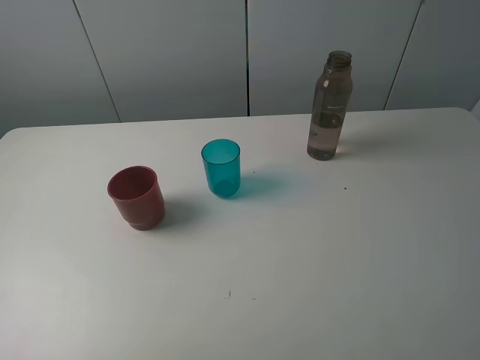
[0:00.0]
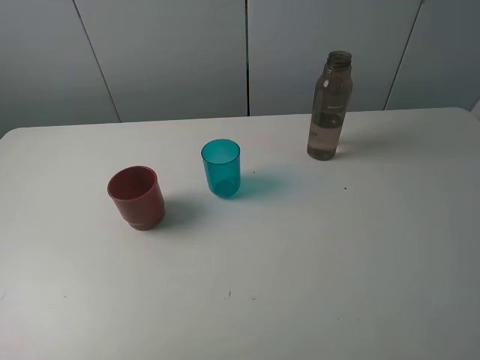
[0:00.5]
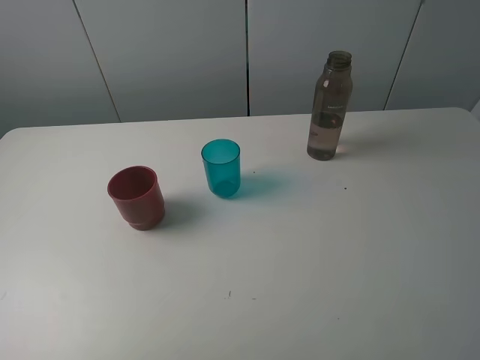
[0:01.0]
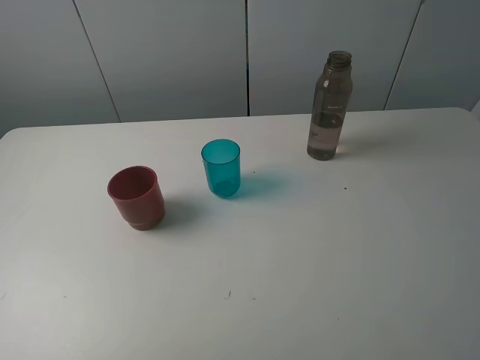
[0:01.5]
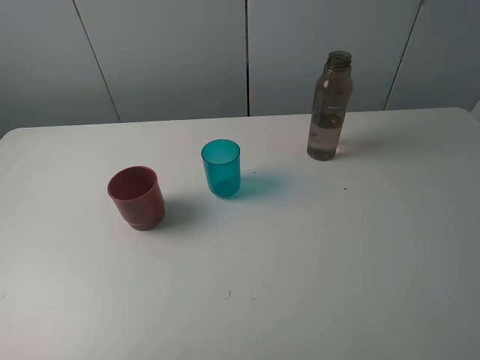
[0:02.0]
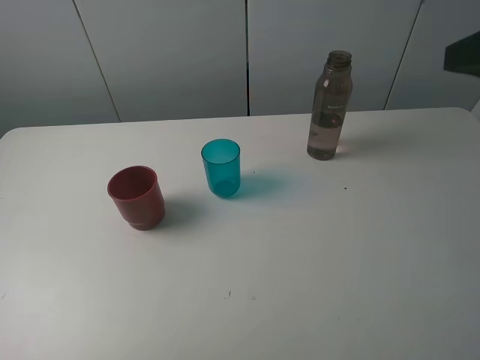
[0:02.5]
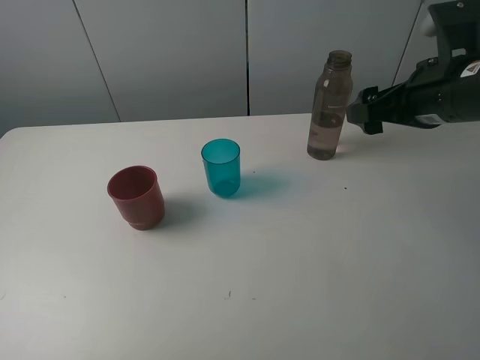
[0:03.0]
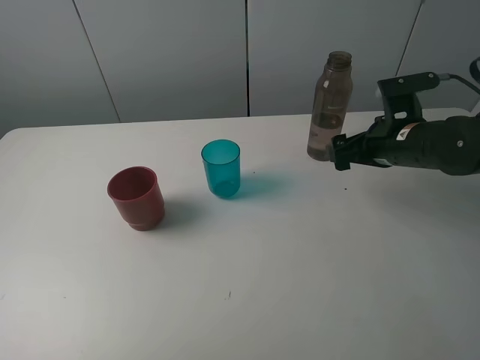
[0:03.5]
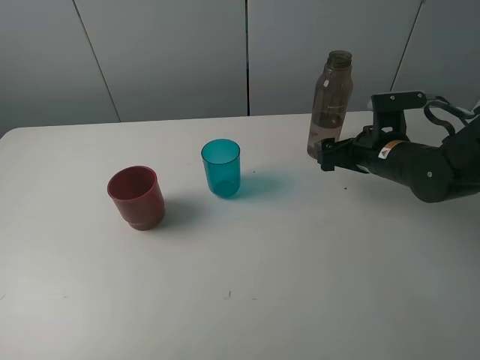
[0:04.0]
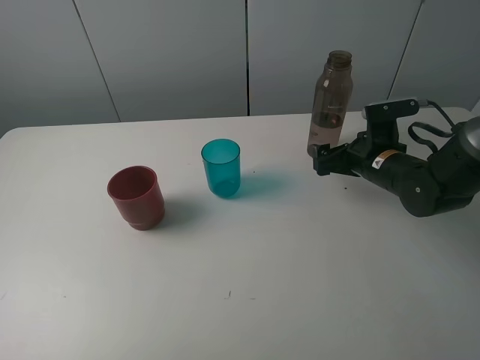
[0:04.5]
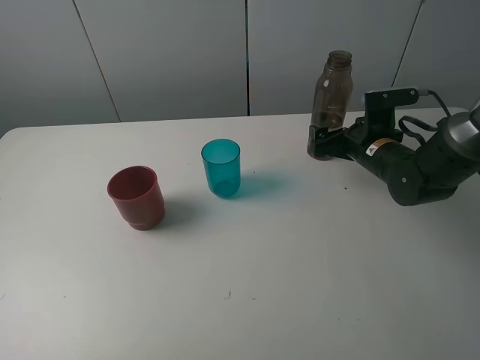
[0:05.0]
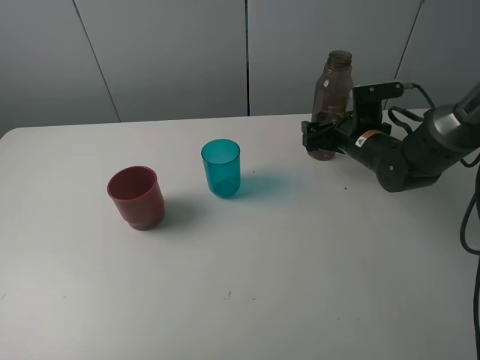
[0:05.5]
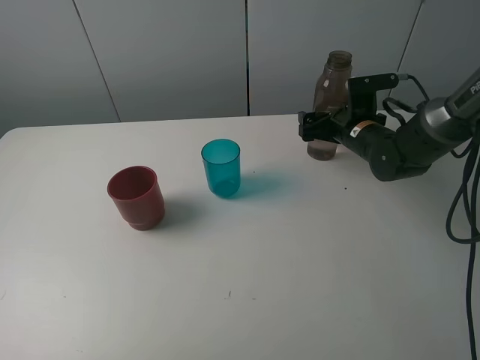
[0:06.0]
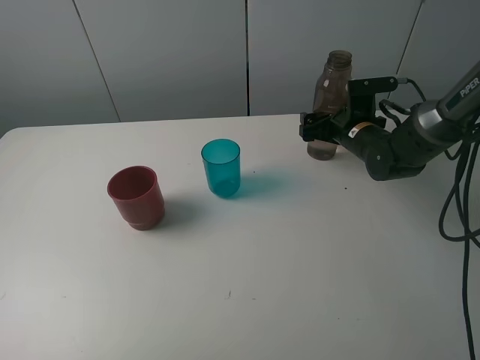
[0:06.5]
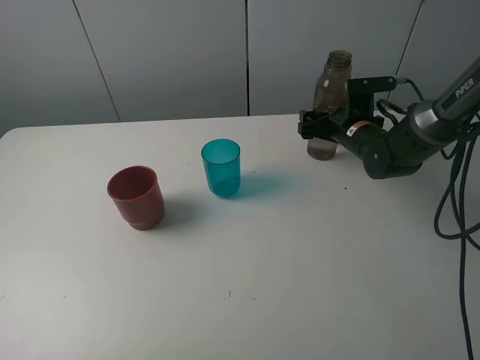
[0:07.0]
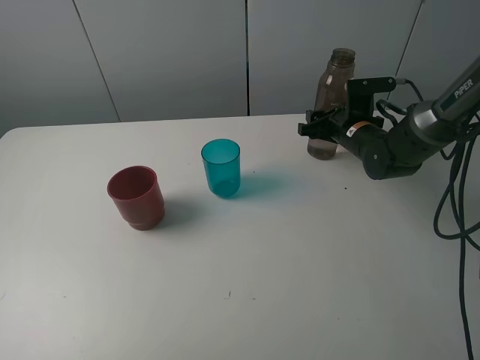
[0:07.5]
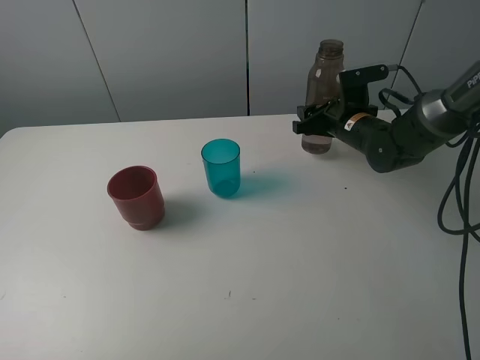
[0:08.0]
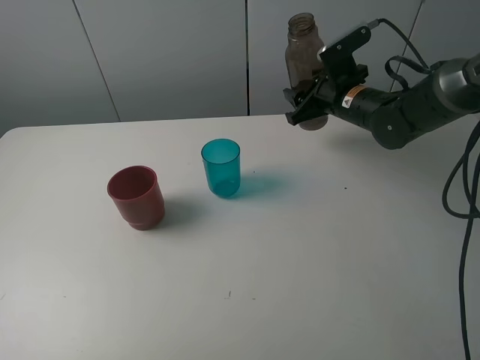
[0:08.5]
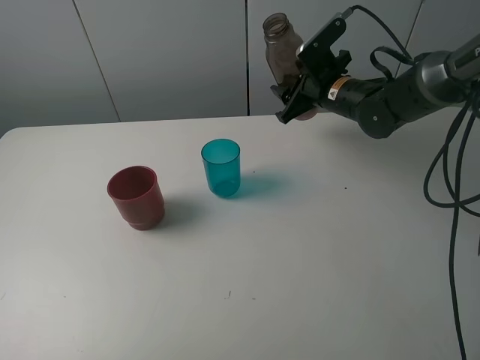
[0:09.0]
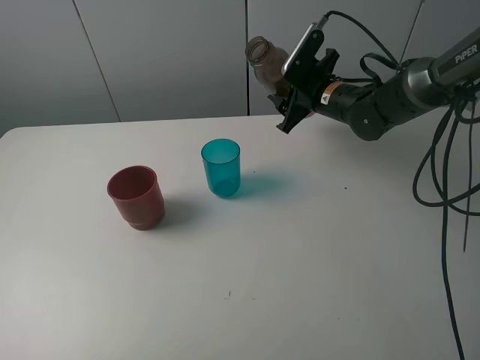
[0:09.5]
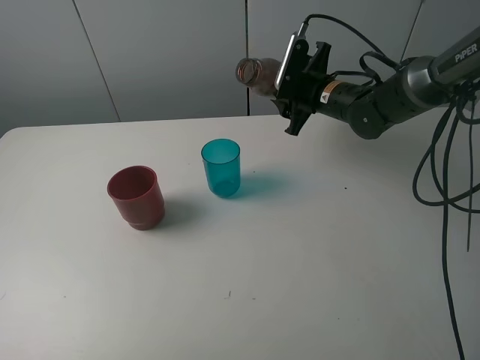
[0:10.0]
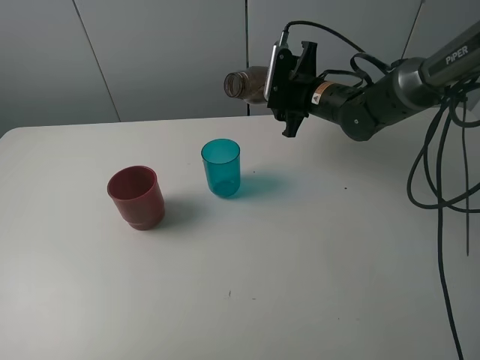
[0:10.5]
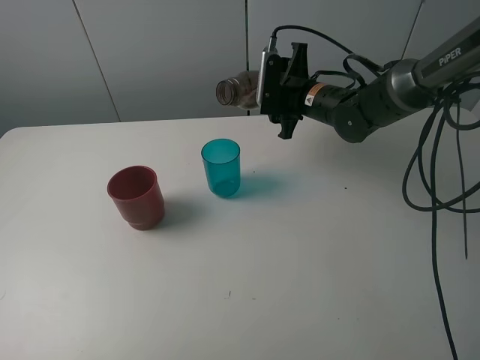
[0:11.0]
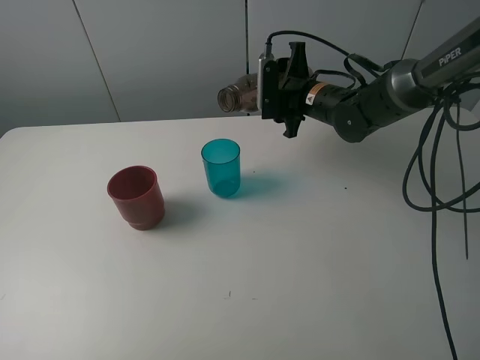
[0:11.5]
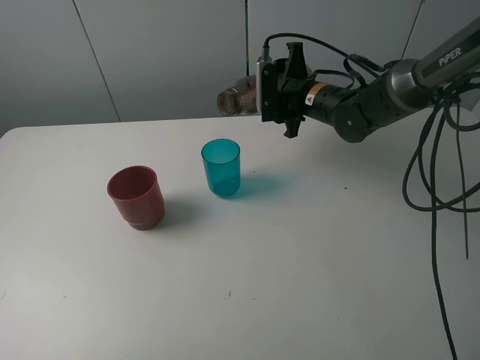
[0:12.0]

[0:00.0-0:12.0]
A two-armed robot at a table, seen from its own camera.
Task of the whole recording: pick up the bottle and pour water into the cup, then pick up the cup containing water and pour it into another cup.
Step, 0.0 to 7.0 s: Grasp the brown bottle with the right gripper.
2.0 to 4.0 s: The right gripper shifts approximately 40 cm forward and downward.
4.0 to 6.0 s: The right gripper shifts approximately 5 cm forward.
6.0 to 8.0 s: The right gripper closes.
8.0 to 10.0 s: The right gripper ends up about 5 cm from where it was.

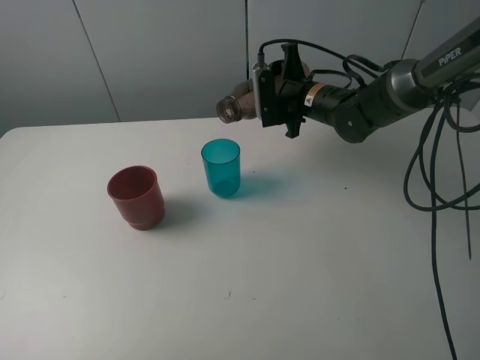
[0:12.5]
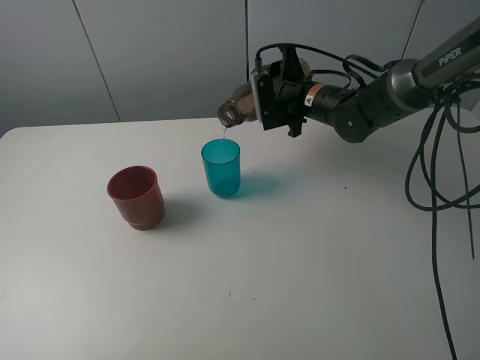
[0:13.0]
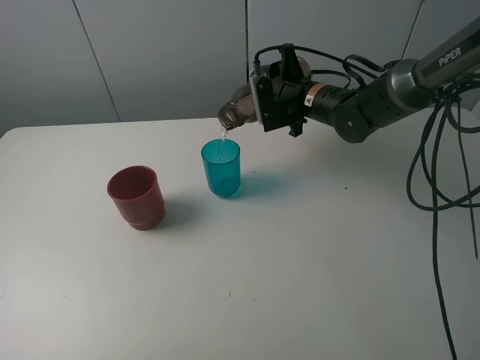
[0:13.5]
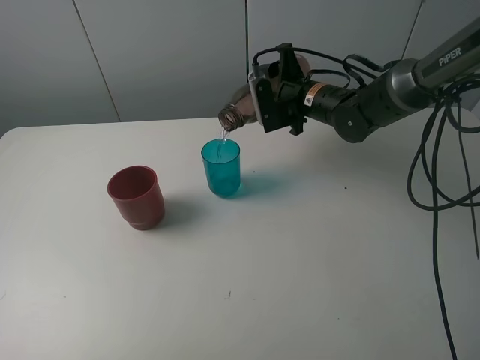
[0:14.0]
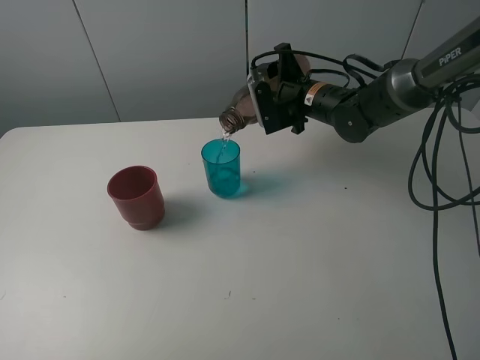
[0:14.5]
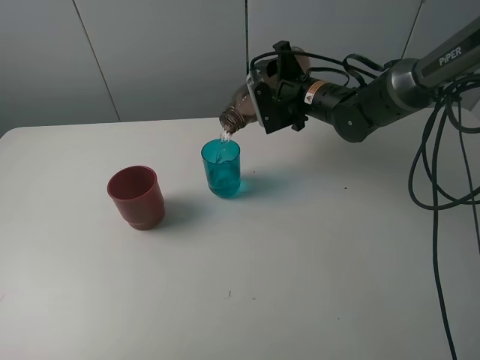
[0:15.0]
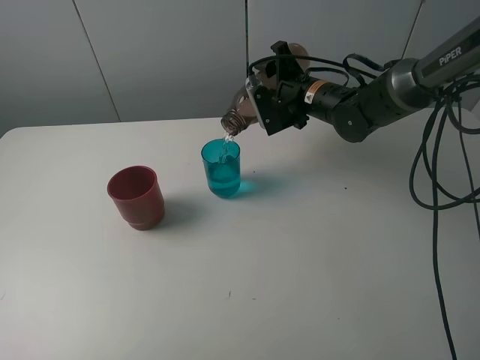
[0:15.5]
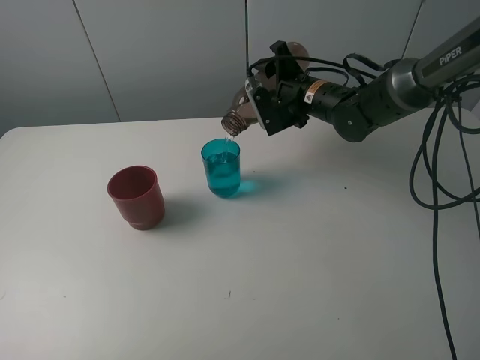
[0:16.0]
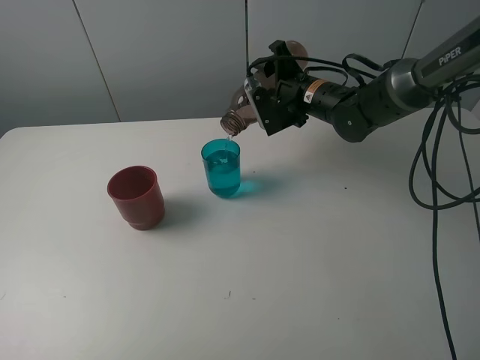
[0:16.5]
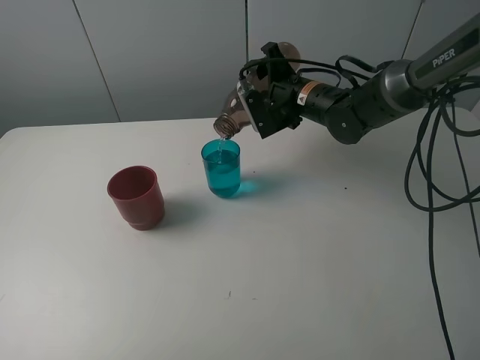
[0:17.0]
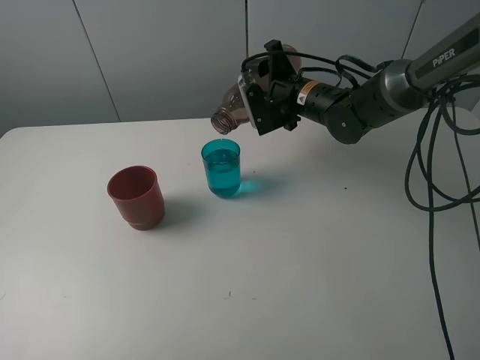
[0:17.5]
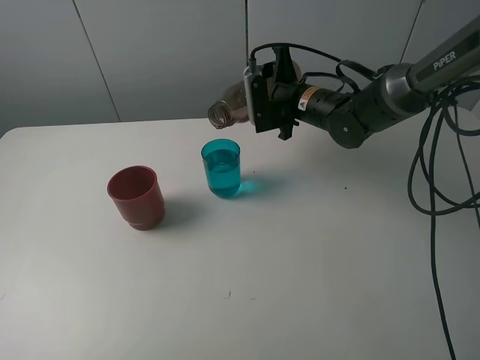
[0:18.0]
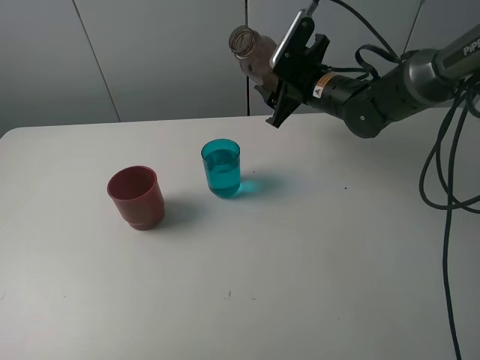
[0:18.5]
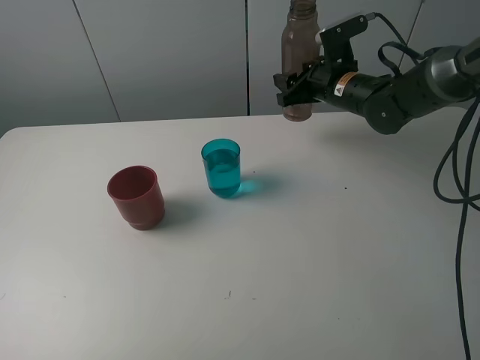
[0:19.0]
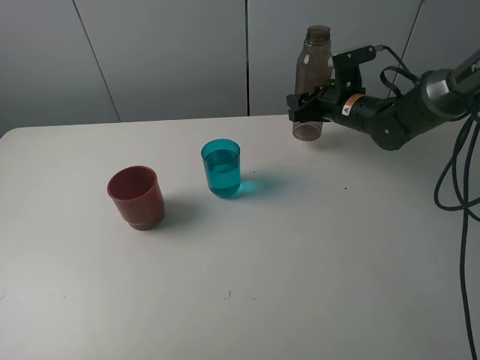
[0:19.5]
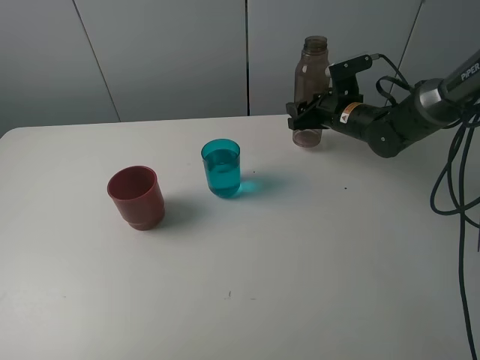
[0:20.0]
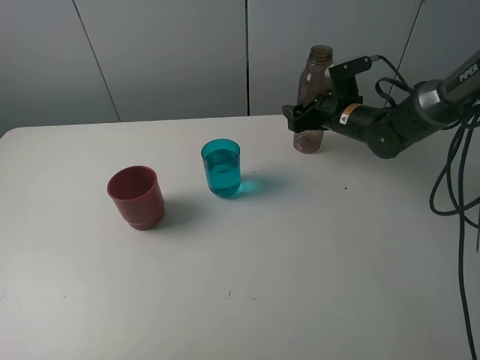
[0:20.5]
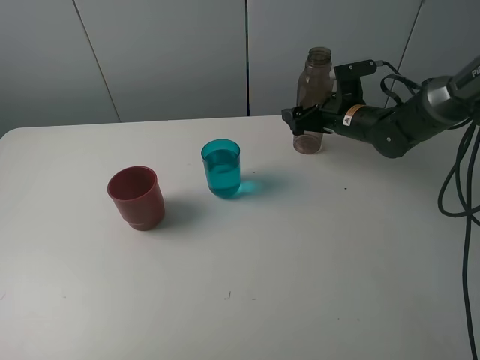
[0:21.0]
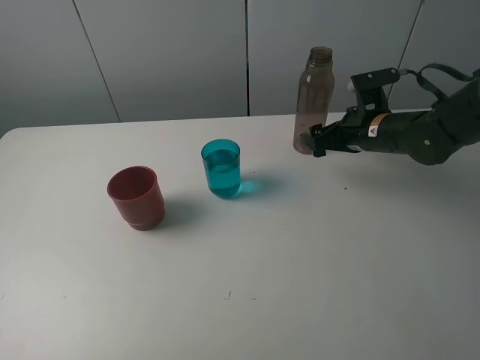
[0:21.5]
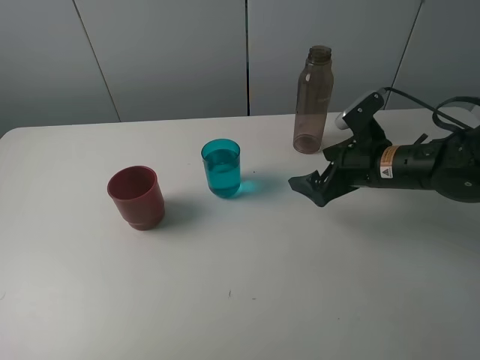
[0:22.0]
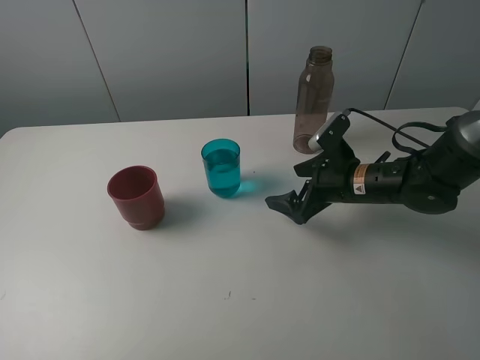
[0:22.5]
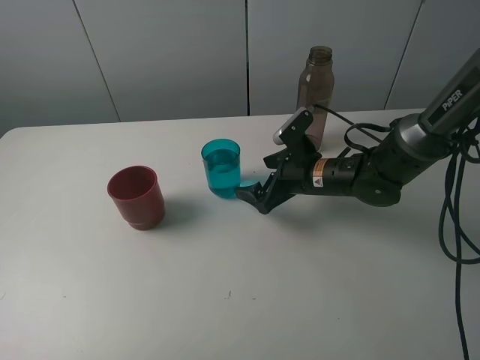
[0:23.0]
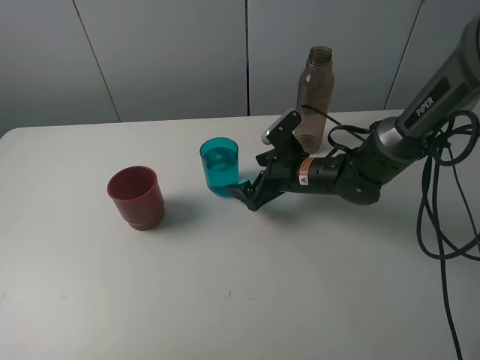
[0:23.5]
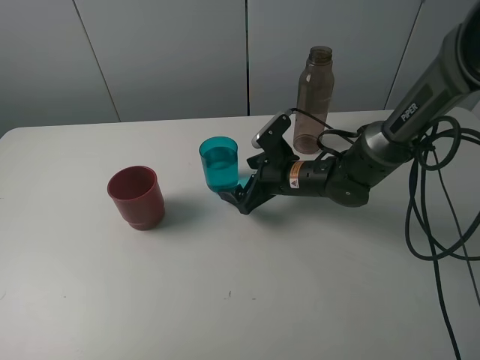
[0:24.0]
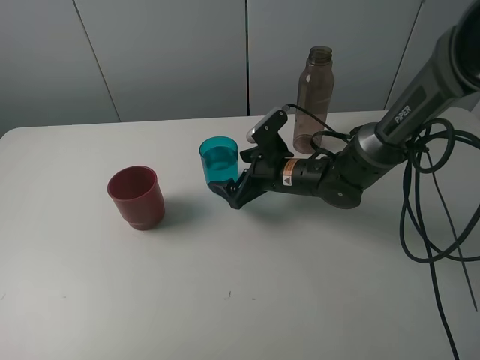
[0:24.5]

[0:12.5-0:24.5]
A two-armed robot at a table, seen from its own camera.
Task of the whole recording: pick up the bottle and pour water into the cup, then pick up the cup containing water and pour it into another cup.
Step, 12.5 to 17.5 s: Pour water from brown bottle to blue cup with the right gripper.
Step, 18.0 to 20.5 s: Place the brown bottle with the right gripper.
12.5 to 16.5 s: The grippers move only a little.
18.5 to 20.5 s: The right gripper travels downward and to the right by roughly 10 cm, and opens its fingers.
20.5 to 22.5 s: The right gripper is displaced backward by roughly 15 cm.
22.5 to 24.5 s: The right gripper heads to the left, covering roughly 10 cm.

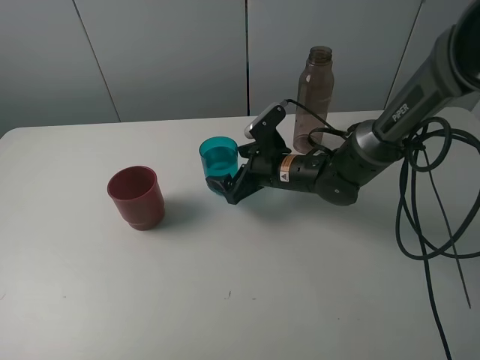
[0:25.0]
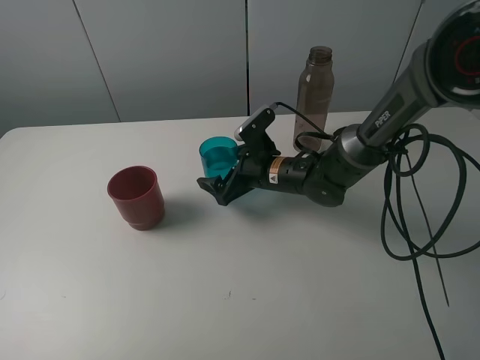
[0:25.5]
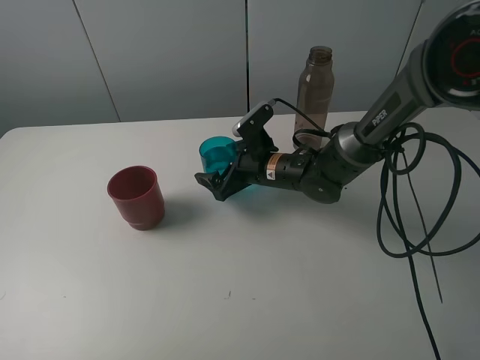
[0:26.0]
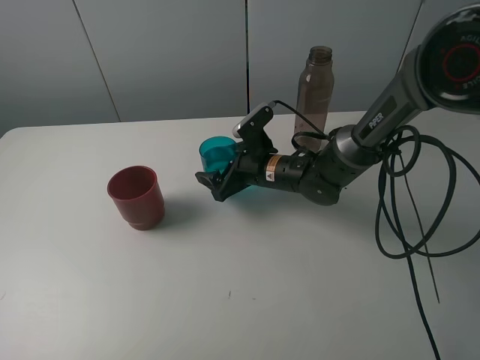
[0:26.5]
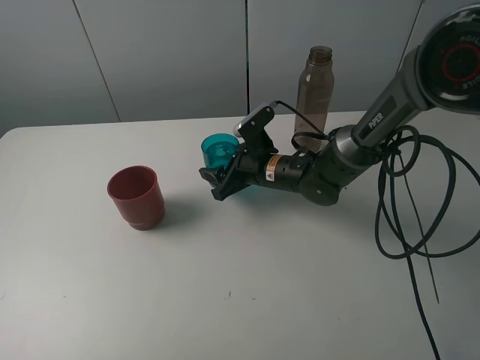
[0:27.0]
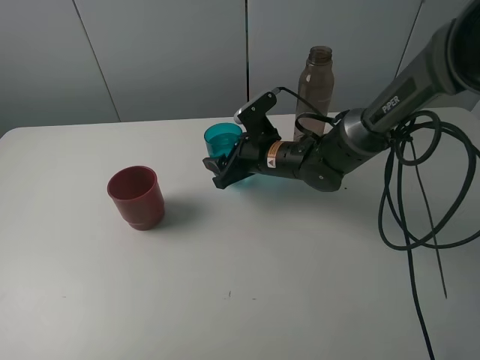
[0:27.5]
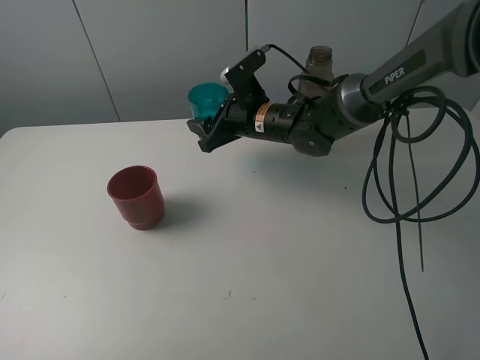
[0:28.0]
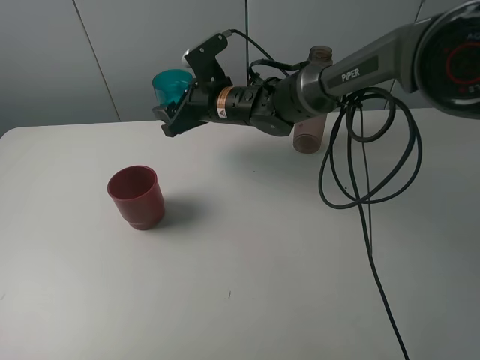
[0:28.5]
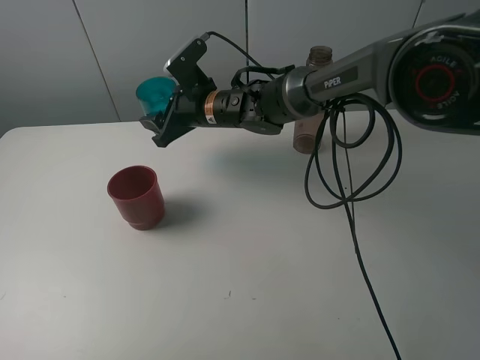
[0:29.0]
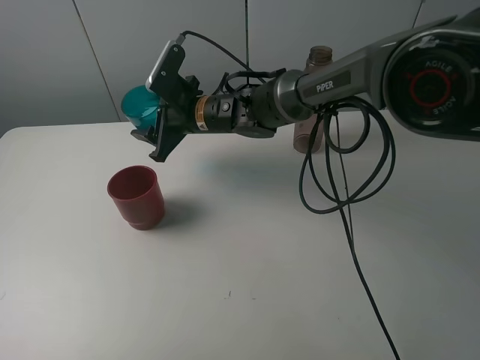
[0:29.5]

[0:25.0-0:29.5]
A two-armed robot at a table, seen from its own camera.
Task of the whole recording: pick up the bottle and pour water into the cup, then pick up the cup containing water and pour it into another cup.
25.0 to 27.0 s: The right gripper closes up.
27.0 to 29.5 s: The right gripper is displaced to the left and upward by some 15 cm.
